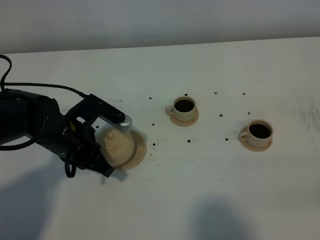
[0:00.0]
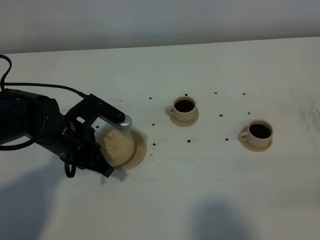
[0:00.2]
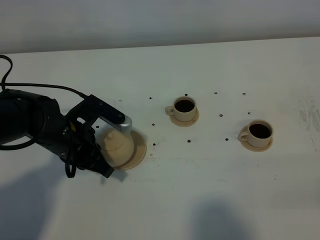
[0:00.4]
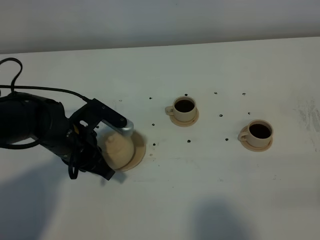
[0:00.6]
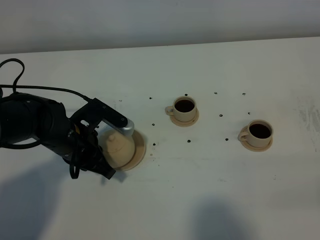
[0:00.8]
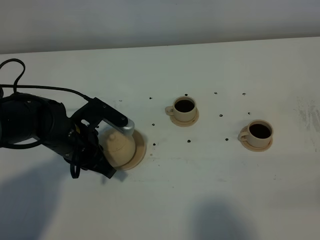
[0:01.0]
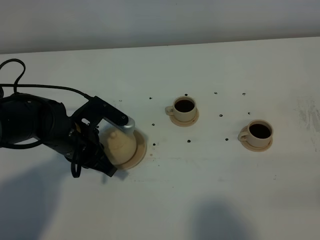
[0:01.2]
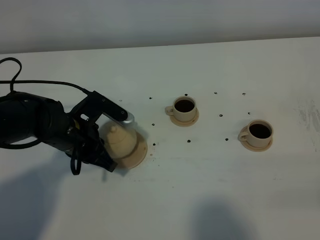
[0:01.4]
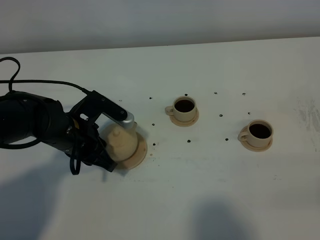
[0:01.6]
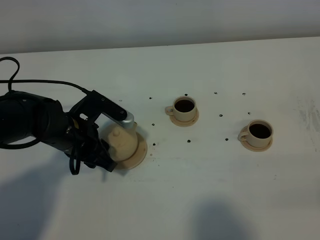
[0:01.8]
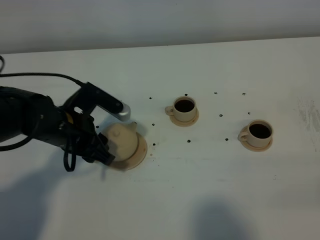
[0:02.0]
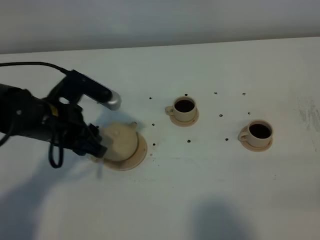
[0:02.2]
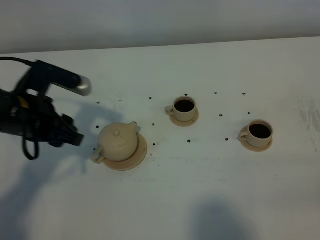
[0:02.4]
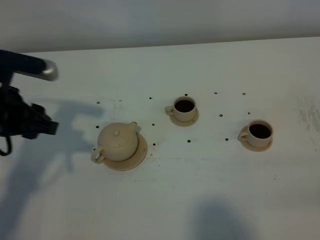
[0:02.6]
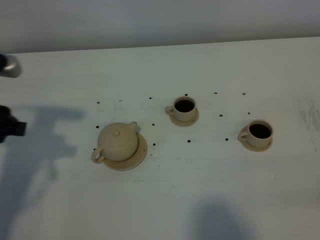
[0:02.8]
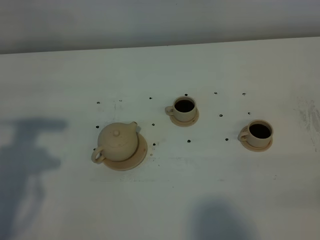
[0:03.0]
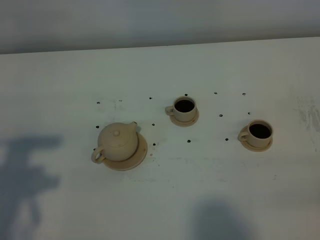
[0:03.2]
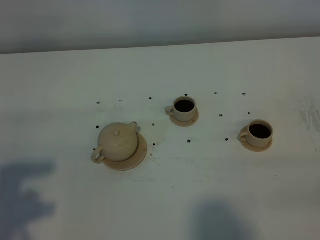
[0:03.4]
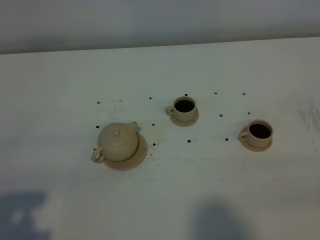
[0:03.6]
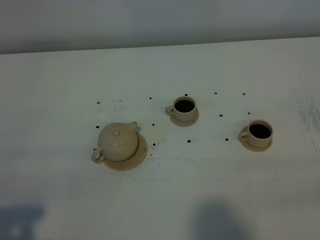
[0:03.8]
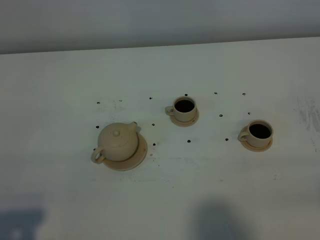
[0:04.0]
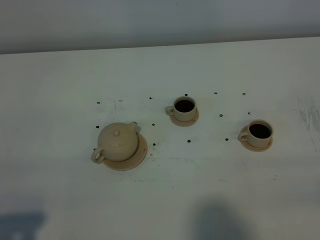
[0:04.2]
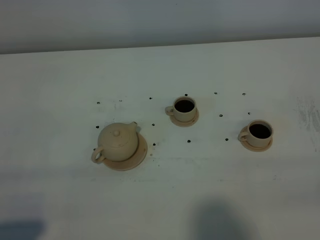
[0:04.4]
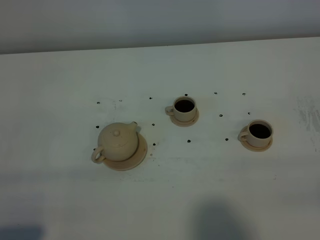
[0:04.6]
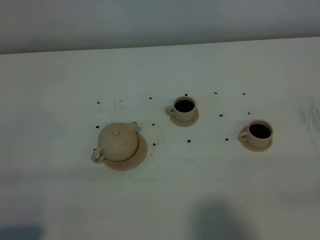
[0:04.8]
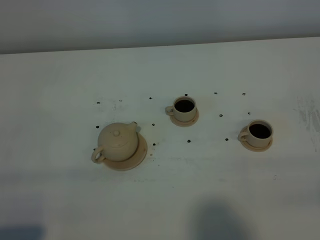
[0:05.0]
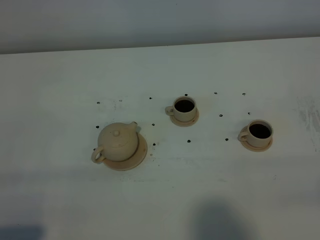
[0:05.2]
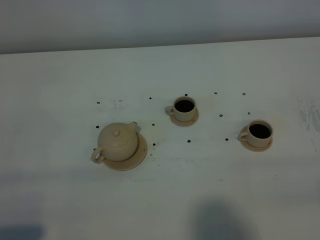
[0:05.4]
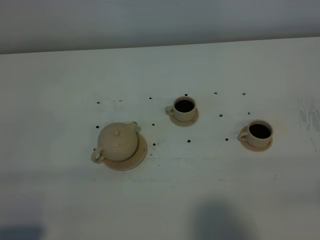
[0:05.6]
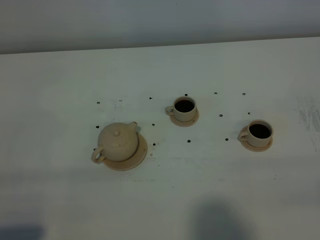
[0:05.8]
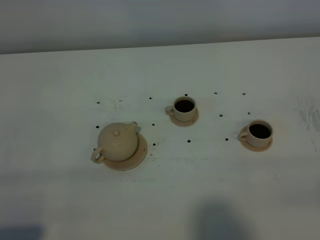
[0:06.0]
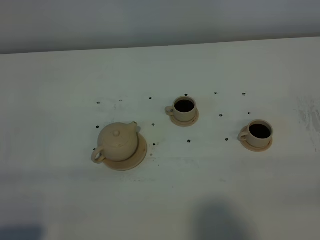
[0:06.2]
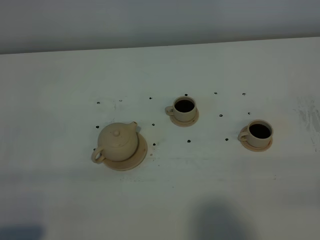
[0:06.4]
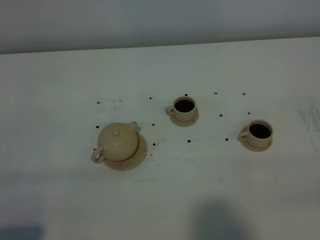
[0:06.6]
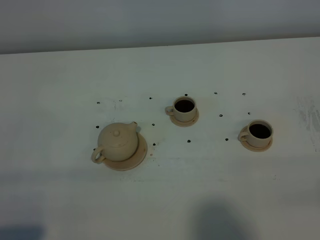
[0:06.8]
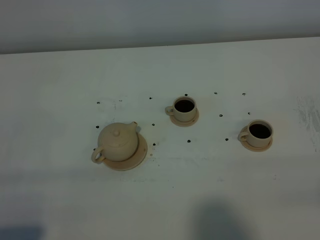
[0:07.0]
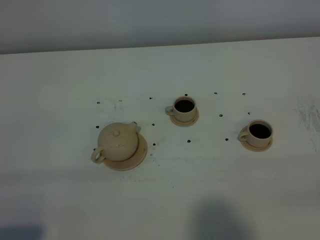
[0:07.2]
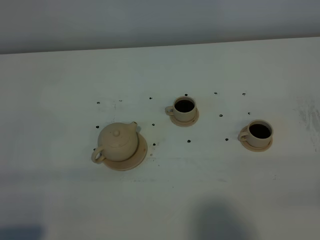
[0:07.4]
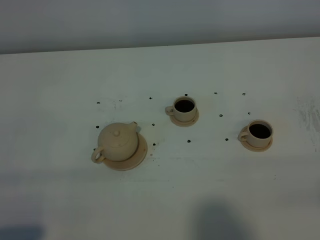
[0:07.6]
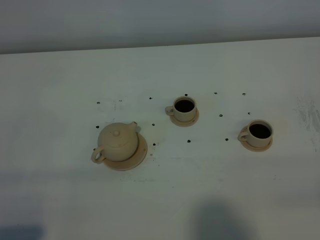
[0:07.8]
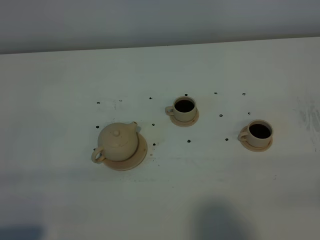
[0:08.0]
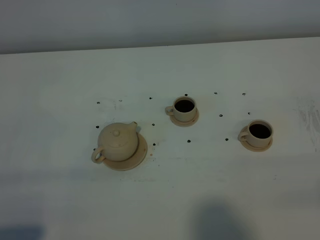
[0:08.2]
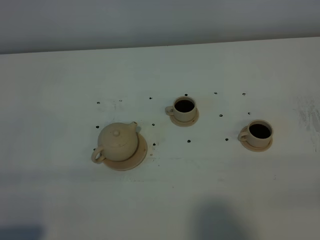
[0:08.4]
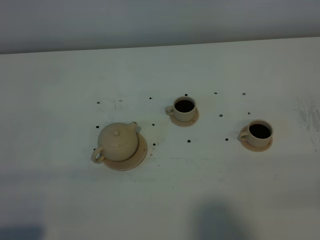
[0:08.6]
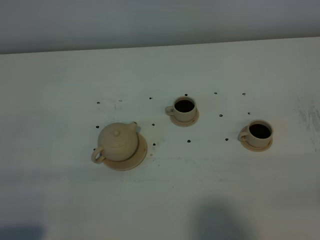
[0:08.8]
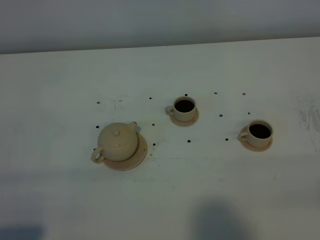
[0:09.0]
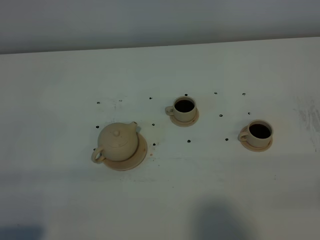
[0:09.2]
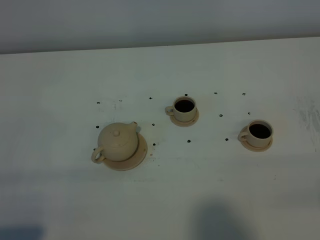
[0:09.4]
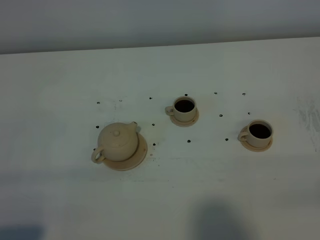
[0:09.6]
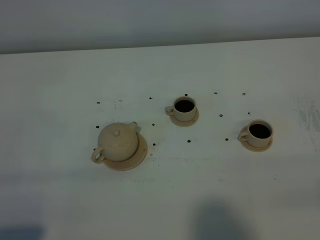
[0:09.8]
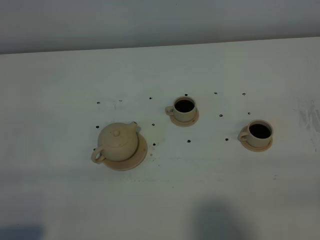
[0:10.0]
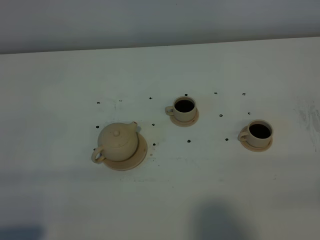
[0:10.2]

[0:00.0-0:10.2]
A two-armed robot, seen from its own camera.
Task of the whole recording: grasp the brown teapot and pour the tea into the two brown teacups one by one, put the brown teapot back in its original place.
0:00.0 to 0:01.4: The grippers make only small movements.
0:01.4 to 0:03.0: The left gripper moves upward, to the left and backward, approximately 25 cm, and opens up.
0:03.0 to 0:04.4: The left gripper shifts about 20 cm backward.
0:04.4 to 0:10.2: Both grippers stay put.

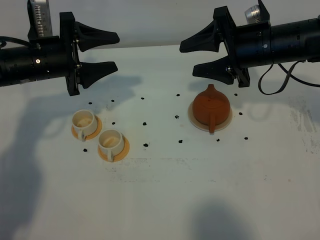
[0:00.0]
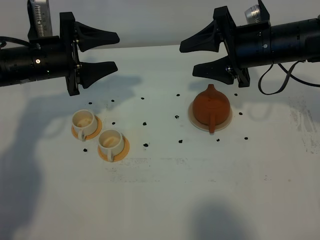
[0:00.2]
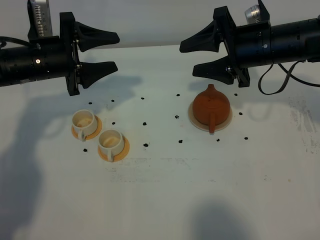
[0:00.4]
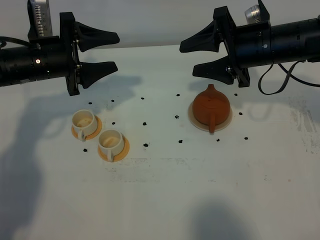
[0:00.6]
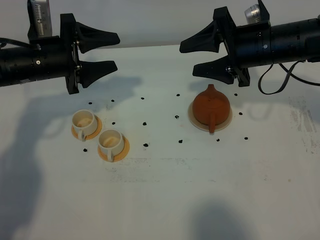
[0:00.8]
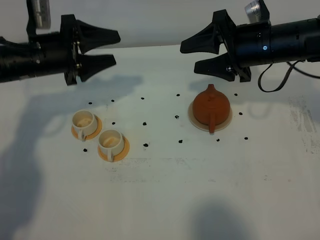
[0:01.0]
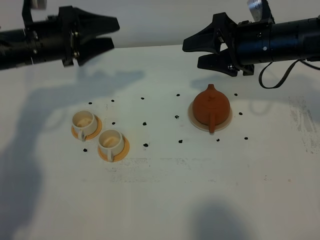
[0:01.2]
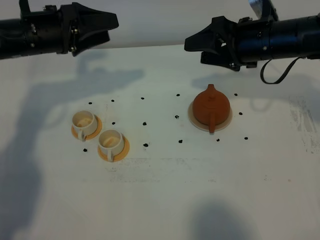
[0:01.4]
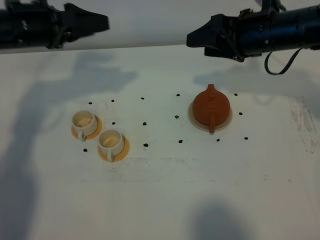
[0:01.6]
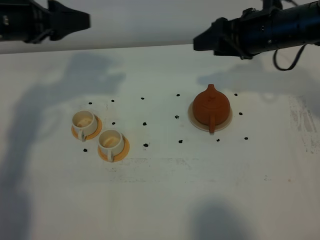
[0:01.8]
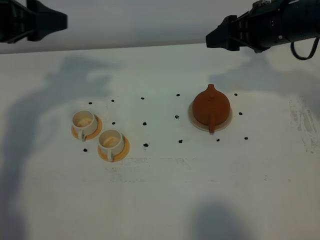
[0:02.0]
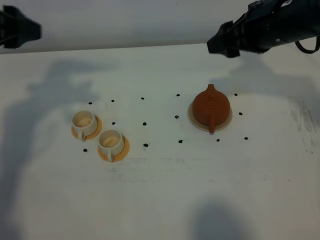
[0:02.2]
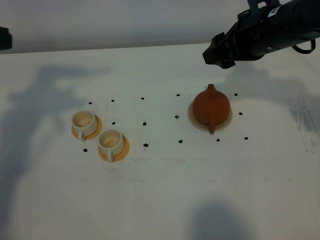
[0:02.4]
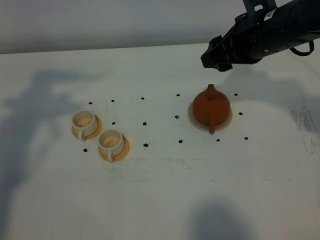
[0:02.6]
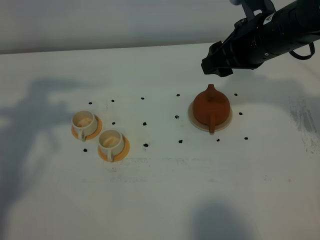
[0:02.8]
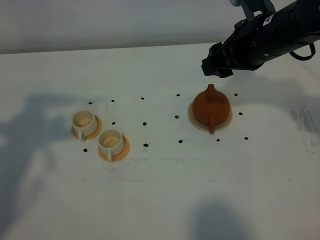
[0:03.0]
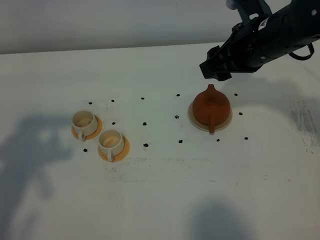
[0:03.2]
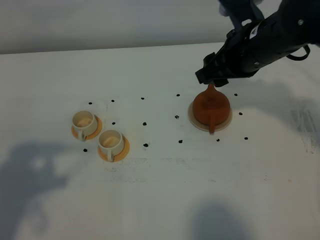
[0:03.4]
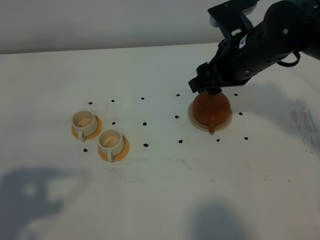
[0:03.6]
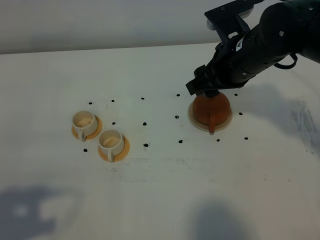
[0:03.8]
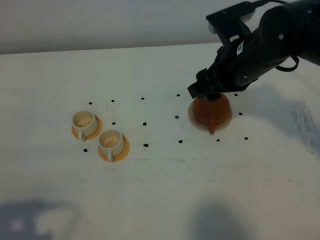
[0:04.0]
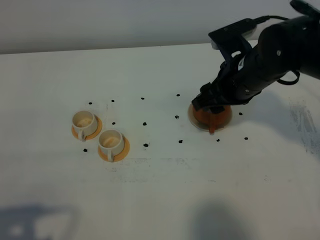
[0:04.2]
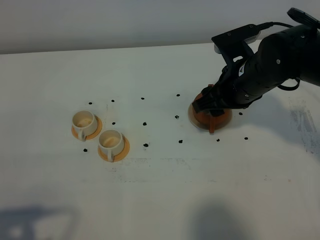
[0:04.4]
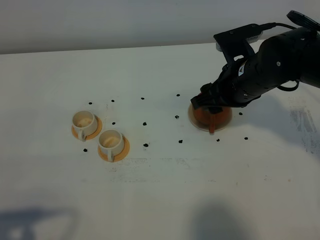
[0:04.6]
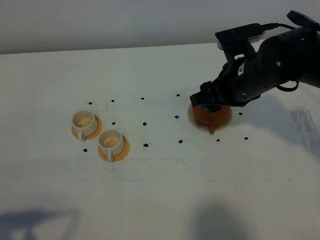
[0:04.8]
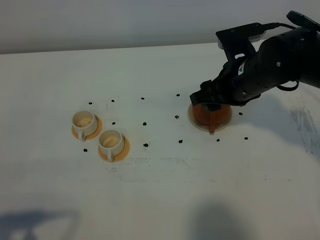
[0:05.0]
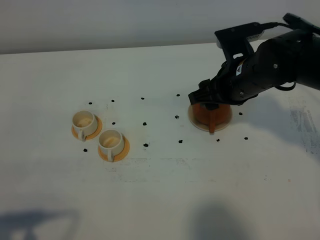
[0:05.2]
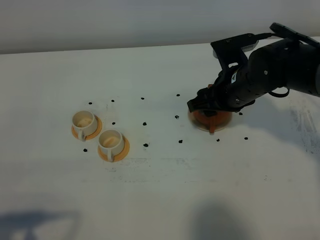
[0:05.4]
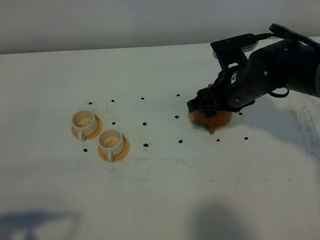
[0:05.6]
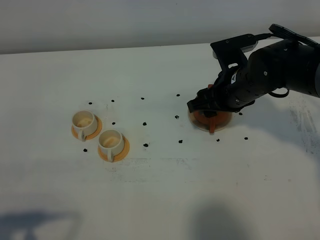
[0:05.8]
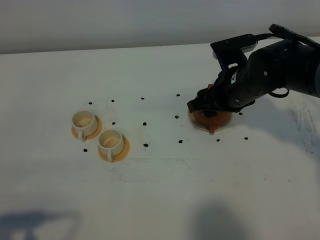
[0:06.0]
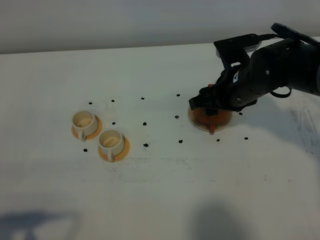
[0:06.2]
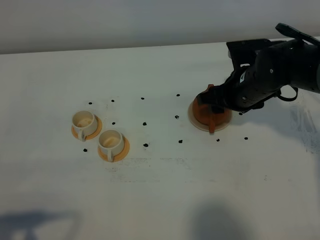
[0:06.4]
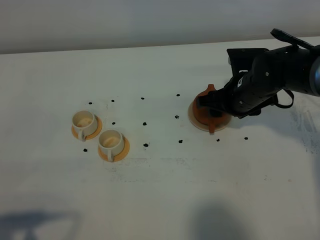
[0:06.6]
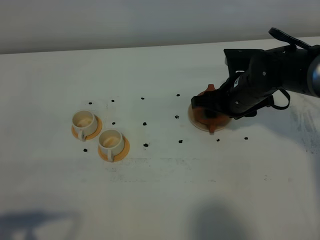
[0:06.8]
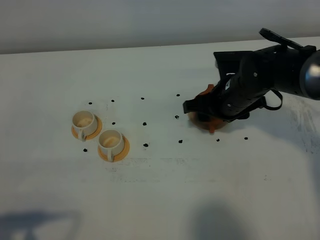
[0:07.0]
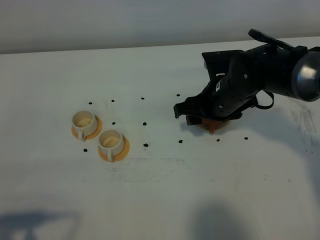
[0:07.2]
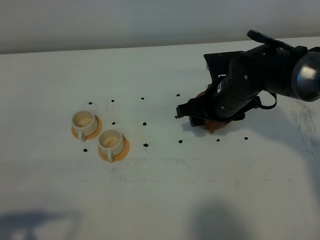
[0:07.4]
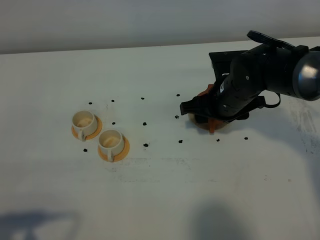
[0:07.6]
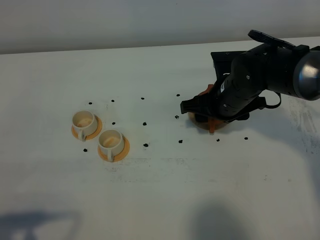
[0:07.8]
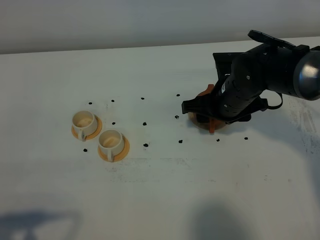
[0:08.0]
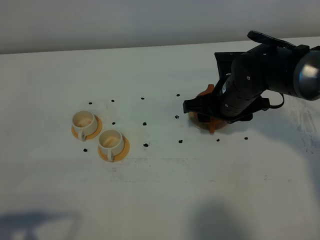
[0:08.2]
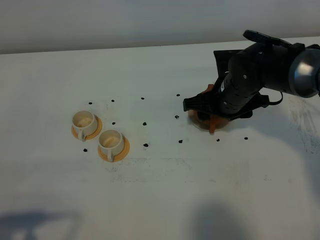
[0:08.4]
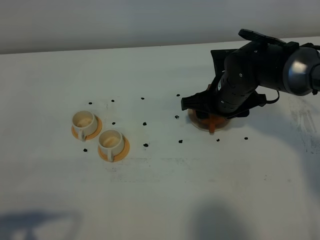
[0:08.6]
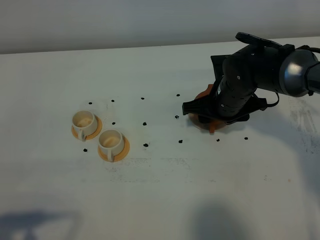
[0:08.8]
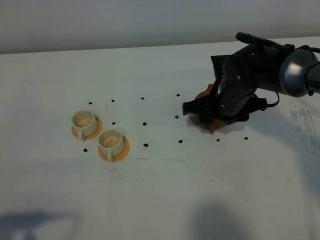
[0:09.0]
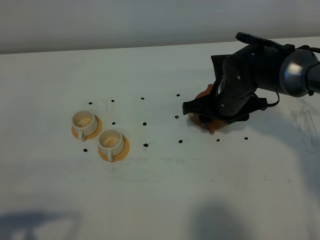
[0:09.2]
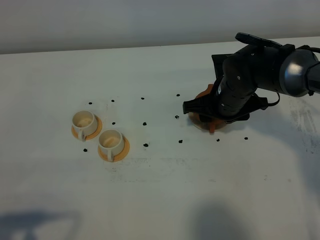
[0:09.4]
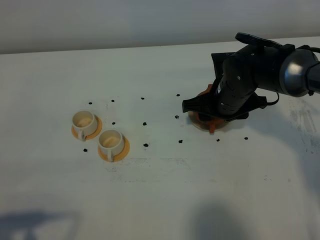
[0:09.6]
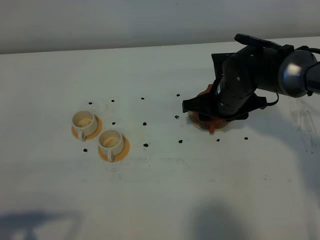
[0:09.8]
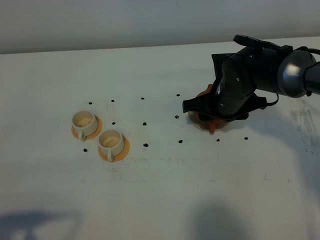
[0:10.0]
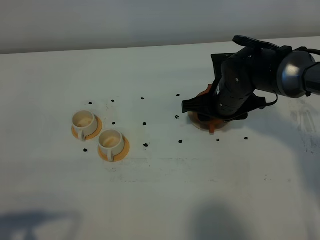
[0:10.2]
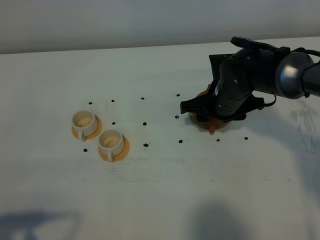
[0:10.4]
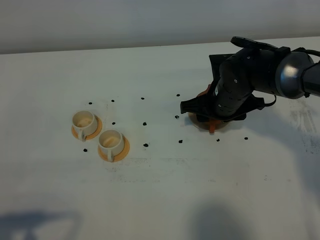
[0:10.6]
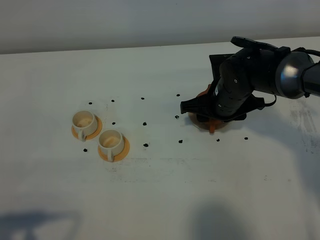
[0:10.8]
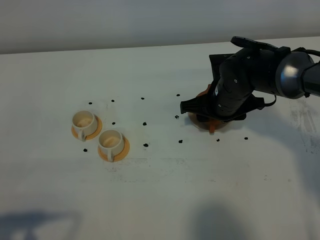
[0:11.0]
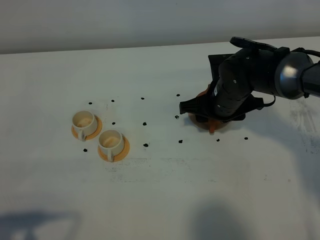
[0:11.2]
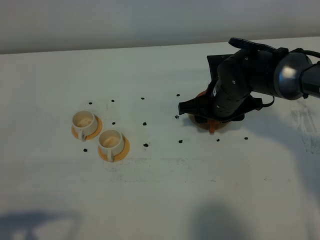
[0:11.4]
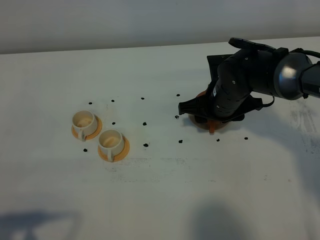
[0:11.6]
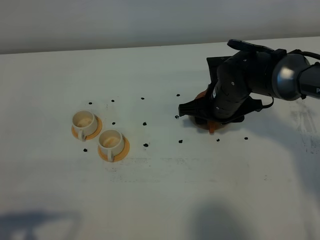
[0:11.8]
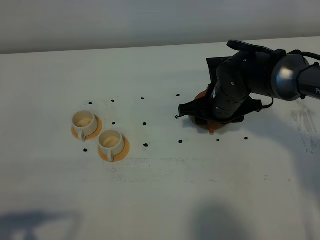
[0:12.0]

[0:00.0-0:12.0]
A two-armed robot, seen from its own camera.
Task of the whole recording: grasp the brown teapot and pour the tea into the two white teacups one by one, put the brown teapot back in its original place.
0:00.0 to 0:01.6: The left gripper shifts approximately 10 cm upward.
0:01.6 to 0:03.0: The left gripper goes some 15 cm backward.
0:03.0 to 0:04.4: The right gripper heads downward, covering approximately 5 cm. The left gripper travels backward and downward by about 20 cm.
0:04.4 to 0:06.0: The grippers stay close to where they were, moving slightly.
0:06.0 to 0:07.6: The grippers stay close to where they were, moving slightly.
0:07.6 to 0:09.0: There are only small adjustments of the grippers.
0:09.0 to 0:12.0: Both grippers stay put.
